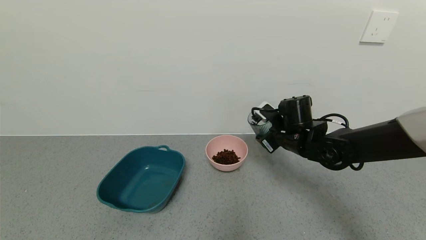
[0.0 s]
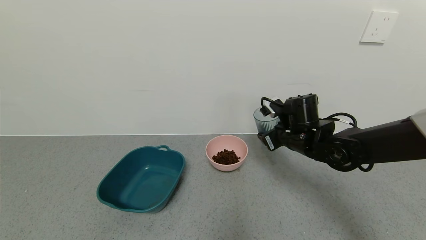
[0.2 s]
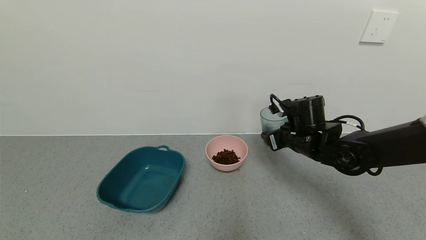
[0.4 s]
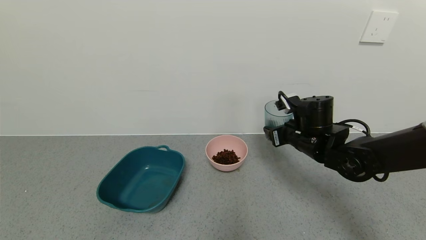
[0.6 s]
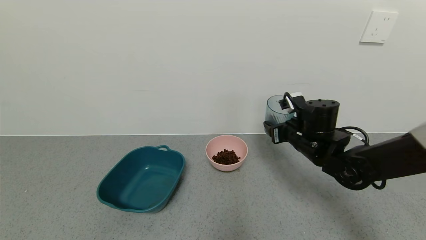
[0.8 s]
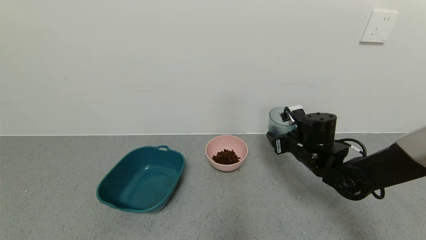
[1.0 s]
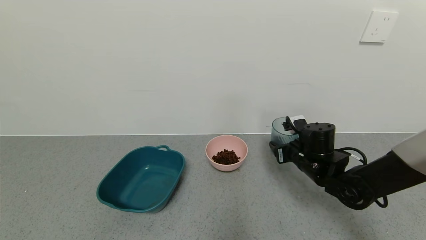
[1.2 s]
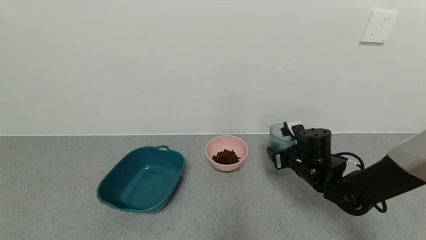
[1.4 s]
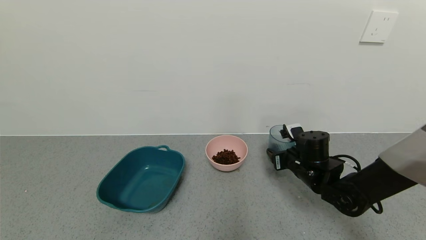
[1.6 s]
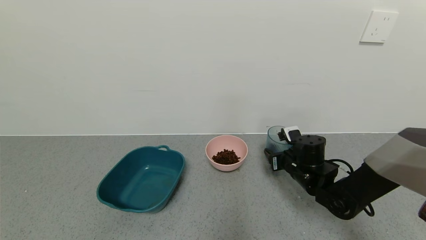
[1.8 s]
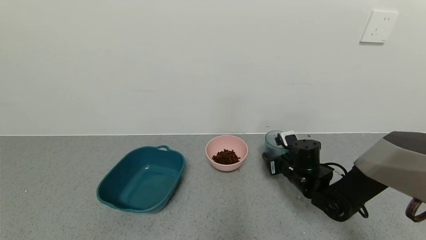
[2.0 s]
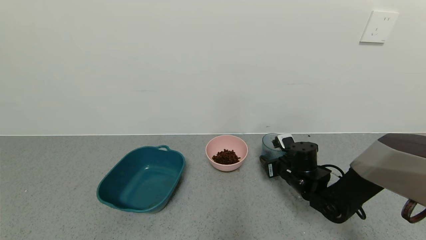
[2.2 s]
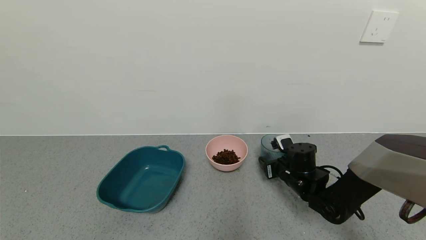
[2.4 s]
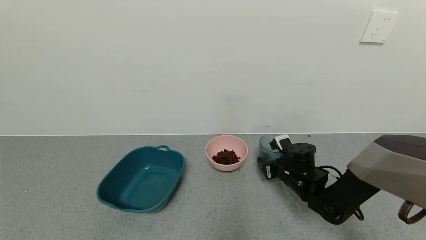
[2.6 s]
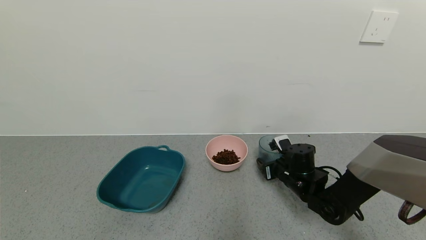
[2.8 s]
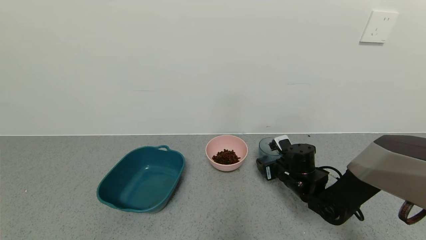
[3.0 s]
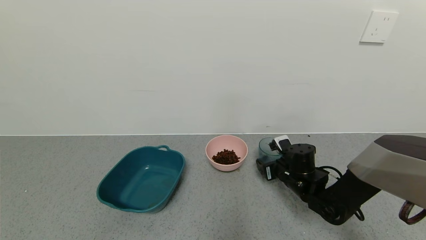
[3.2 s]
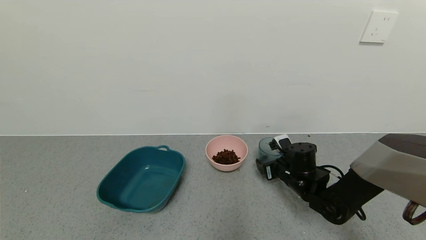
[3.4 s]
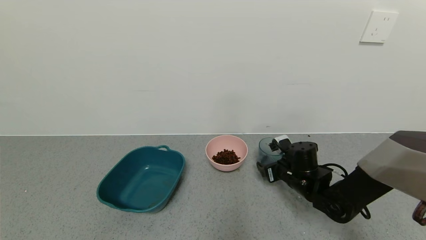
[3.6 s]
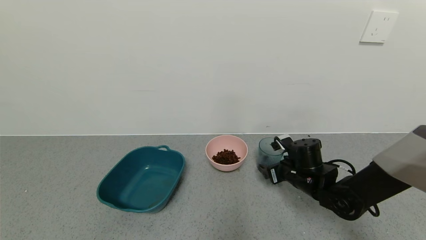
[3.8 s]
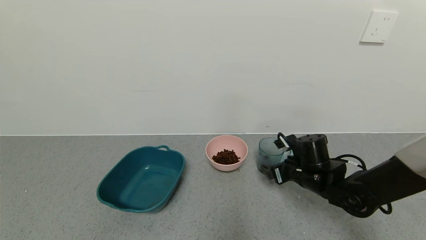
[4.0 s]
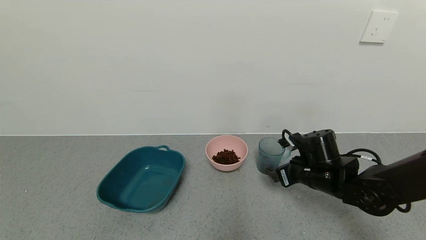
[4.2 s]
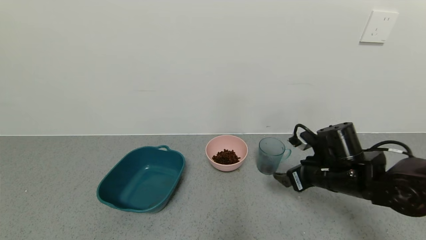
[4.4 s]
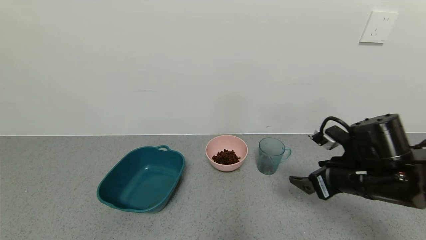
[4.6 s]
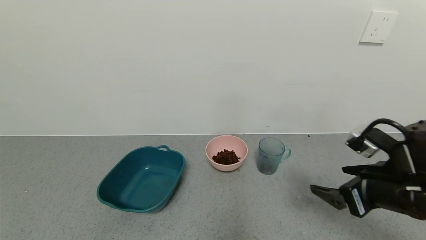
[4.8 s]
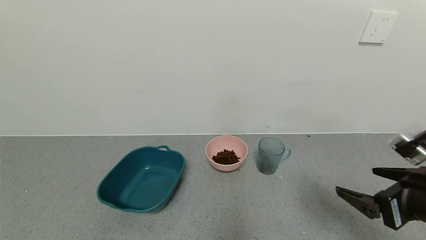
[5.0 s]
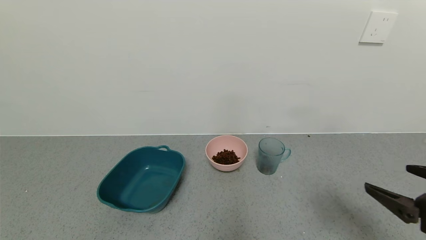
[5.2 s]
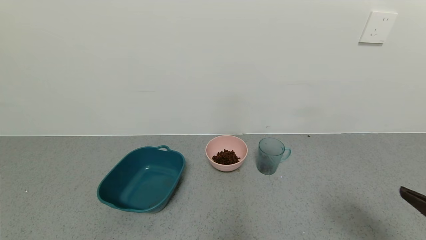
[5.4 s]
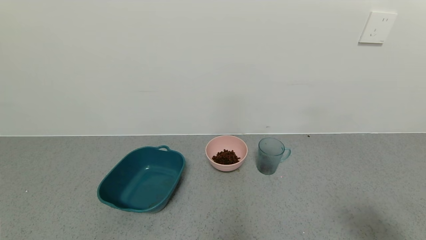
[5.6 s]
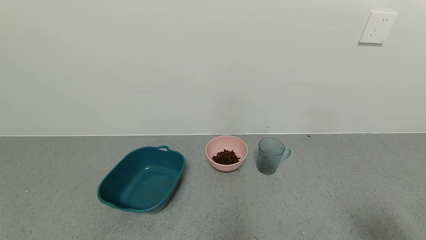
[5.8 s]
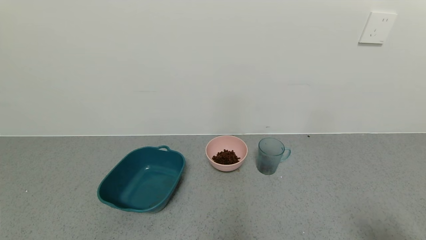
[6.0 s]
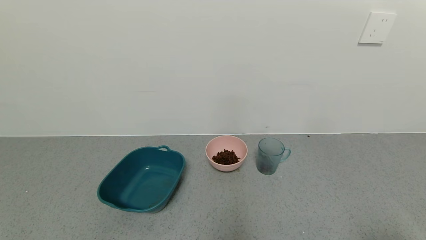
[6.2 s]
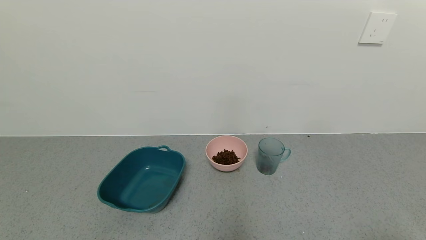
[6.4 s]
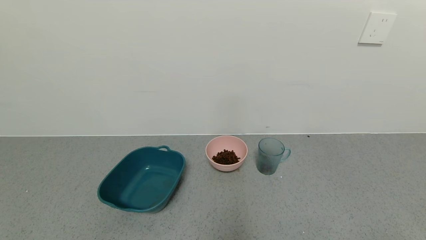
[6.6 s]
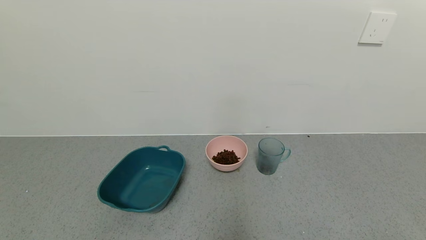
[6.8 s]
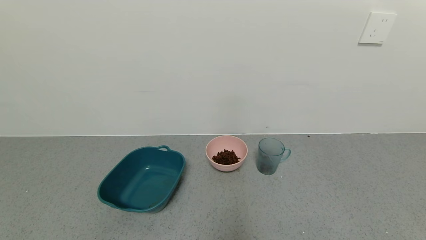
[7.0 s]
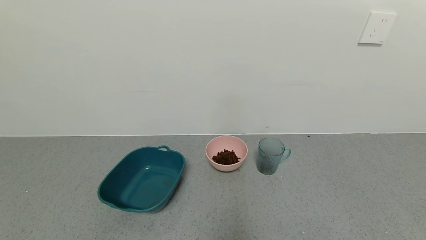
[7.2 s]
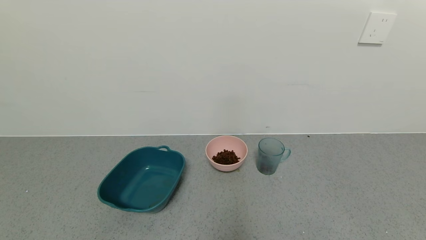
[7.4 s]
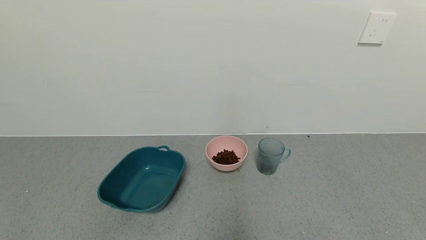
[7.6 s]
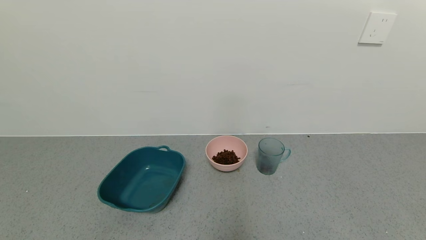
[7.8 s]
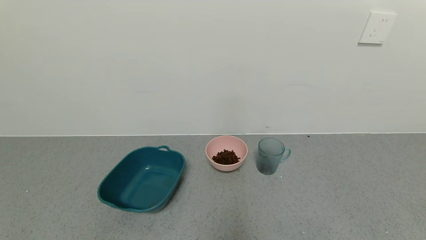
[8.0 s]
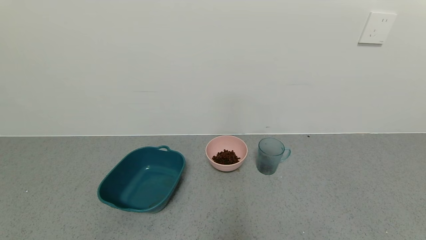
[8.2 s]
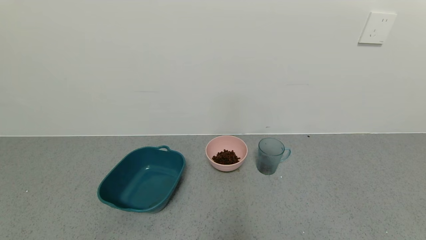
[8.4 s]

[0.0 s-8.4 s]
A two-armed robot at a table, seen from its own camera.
Task of the whole recording: use a gripper to pick up the cup and pour the solid into a bowl or tray.
Step, 0.2 to 4.2 s: Place the glass cup with the right gripper.
0.0 to 1.4 s: The right gripper travels downward by approximately 5 cm.
1.4 to 2.8 s: The right gripper shifts some 5 cm downward.
2.8 to 4.2 s: The right gripper heads upward, covering approximately 5 cm, and opens up.
4.2 to 5.6 s: The right gripper travels backward, to the right and upward by roughly 30 cm.
5.6 to 7.0 s: The right gripper moves downward and backward, roughly 15 cm.
